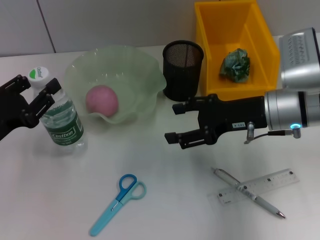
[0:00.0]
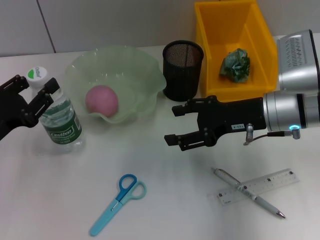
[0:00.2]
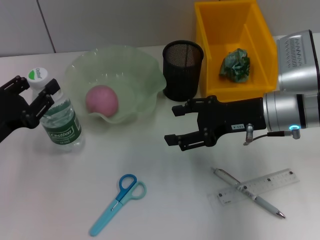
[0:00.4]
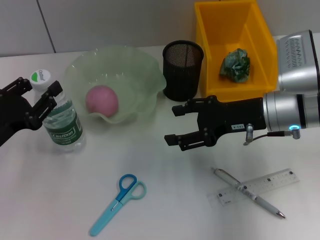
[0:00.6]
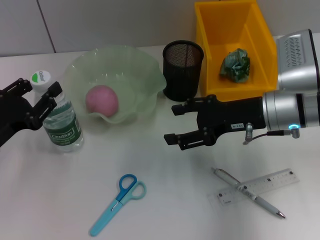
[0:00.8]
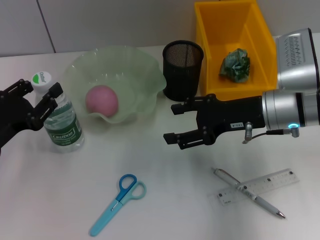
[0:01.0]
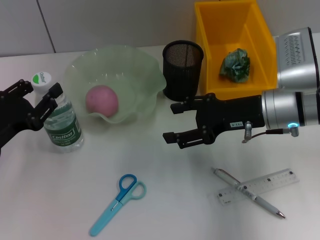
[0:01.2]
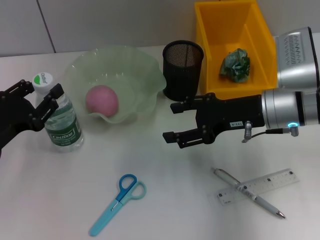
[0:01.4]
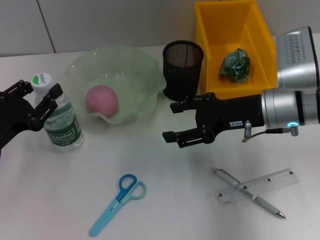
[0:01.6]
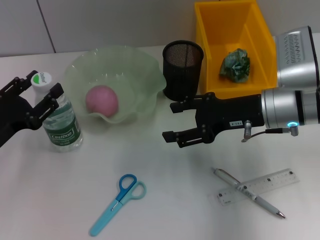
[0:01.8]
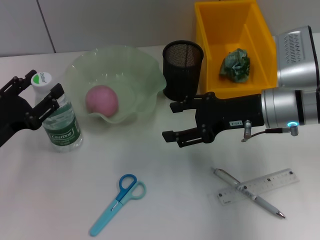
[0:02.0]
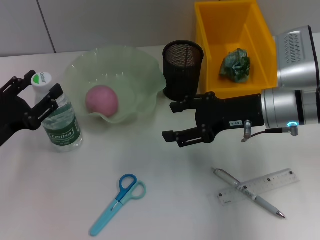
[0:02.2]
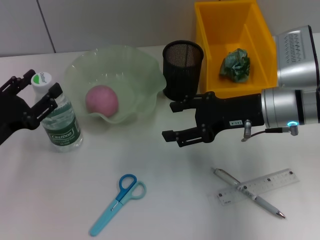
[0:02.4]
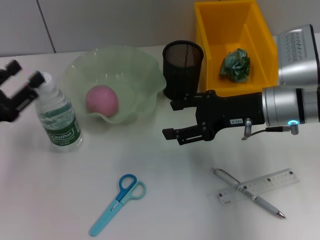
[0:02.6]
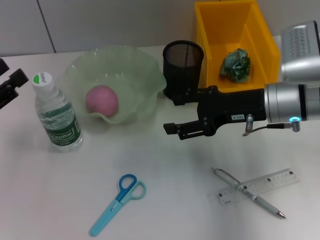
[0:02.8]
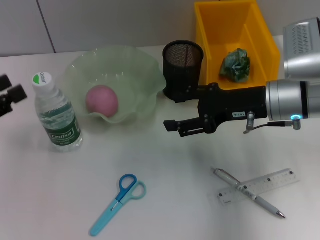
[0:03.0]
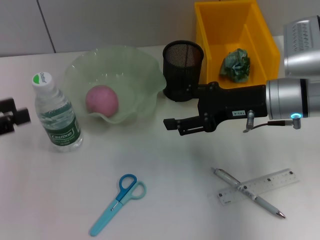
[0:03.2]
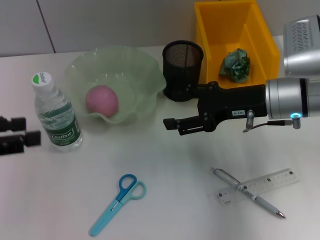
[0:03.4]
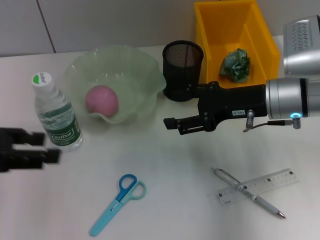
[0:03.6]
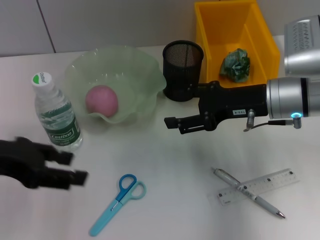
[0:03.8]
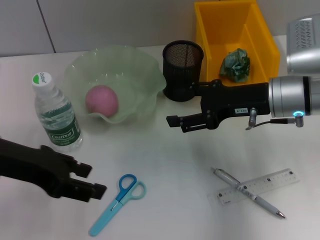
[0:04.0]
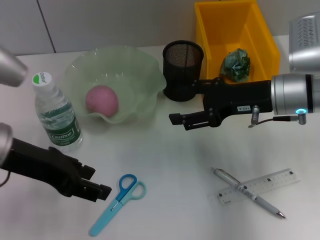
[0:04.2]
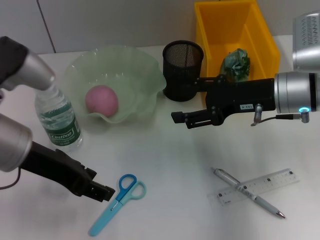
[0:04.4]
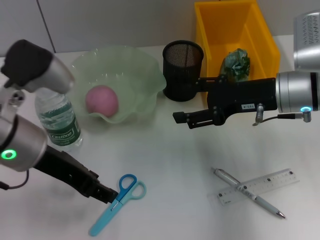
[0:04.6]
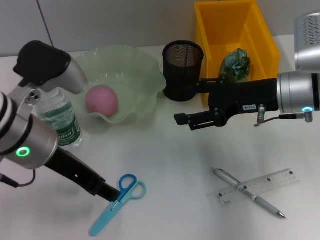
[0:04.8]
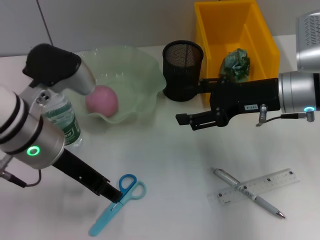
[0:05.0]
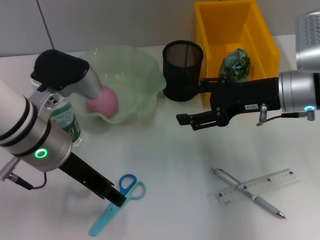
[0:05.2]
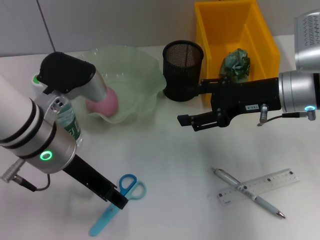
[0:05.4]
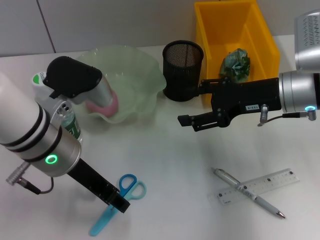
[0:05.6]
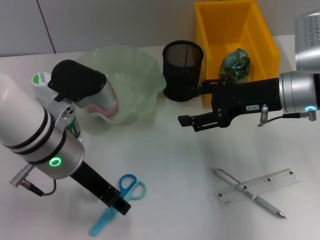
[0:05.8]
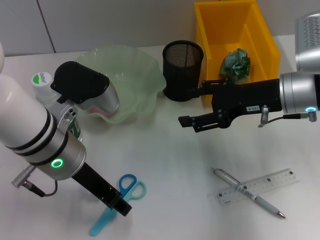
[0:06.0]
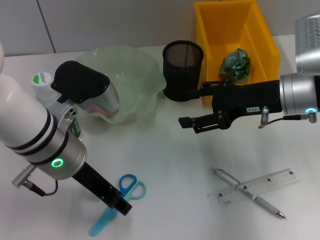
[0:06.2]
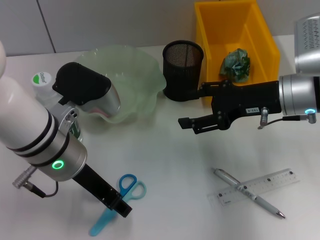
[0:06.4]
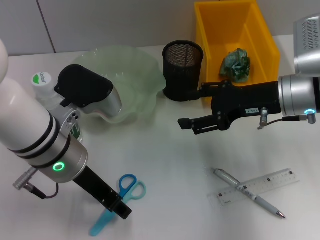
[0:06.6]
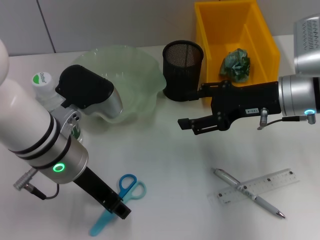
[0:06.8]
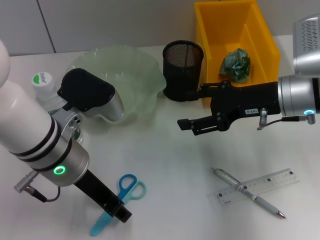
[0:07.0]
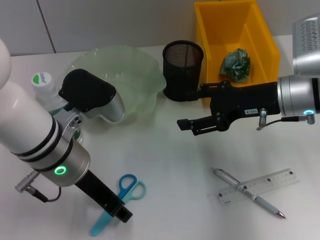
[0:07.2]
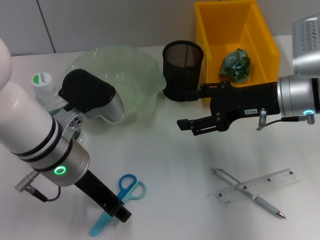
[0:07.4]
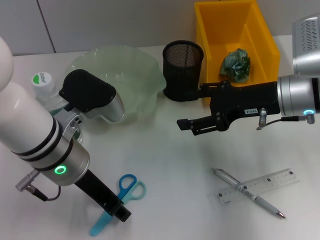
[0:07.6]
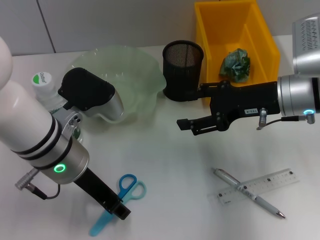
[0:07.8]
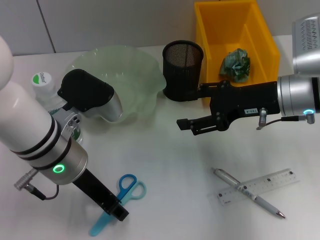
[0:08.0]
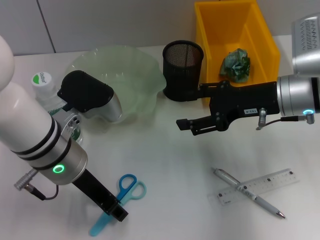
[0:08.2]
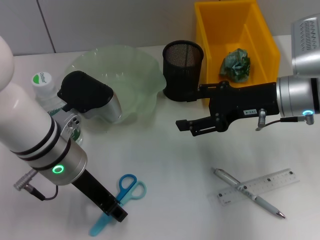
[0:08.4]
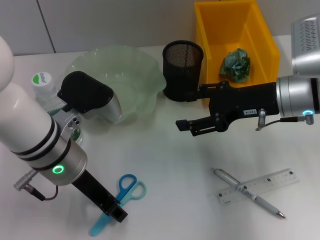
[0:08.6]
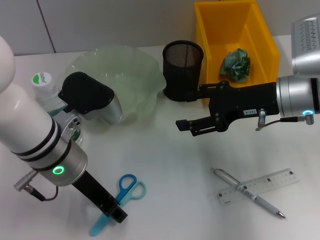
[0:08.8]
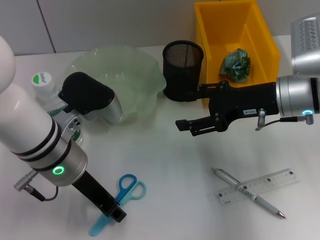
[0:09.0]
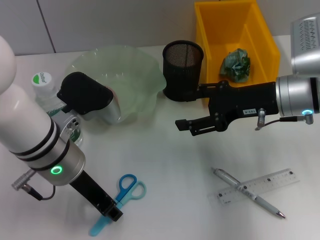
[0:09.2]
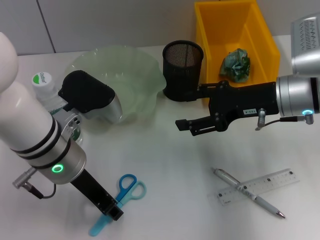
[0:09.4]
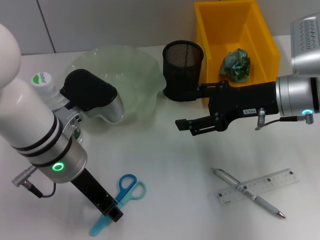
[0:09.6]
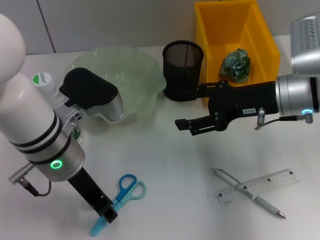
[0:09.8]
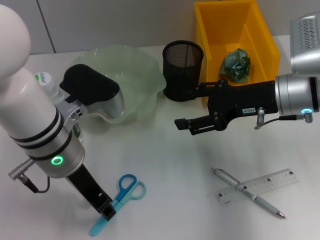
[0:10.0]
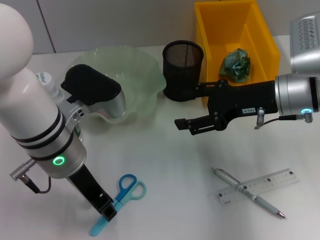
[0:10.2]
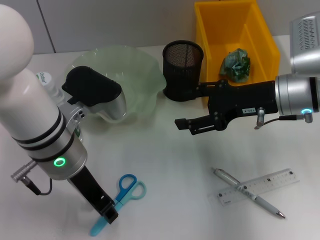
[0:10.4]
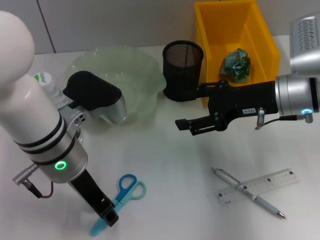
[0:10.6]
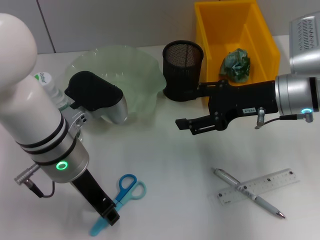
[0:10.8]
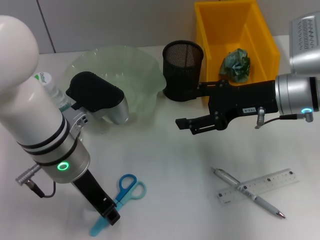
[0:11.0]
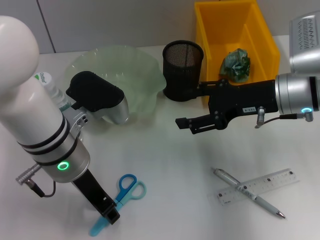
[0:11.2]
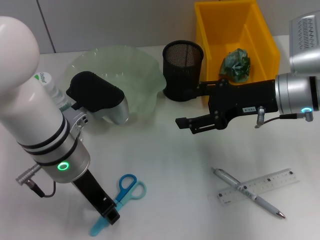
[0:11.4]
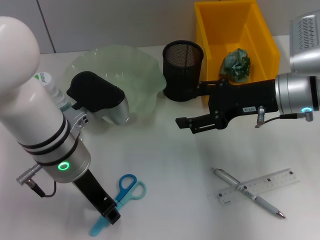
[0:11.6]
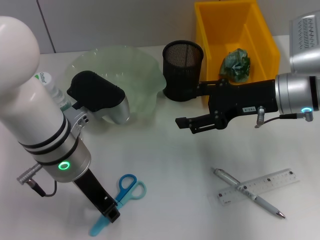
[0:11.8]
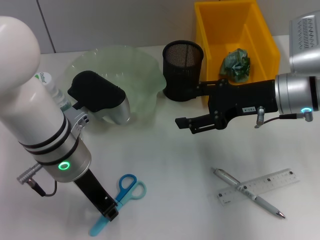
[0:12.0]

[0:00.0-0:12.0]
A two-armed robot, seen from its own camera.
Step, 0:00.0 to 0:02.0: Place the water bottle on the table with the left hand.
0:00.0 to 0:01.6: The grippers move only a little.
0:01.6 to 0:03.0: The left gripper shifts by roughly 5 cm.
0:03.0 to 0:04.4: The left gripper shifts roughly 15 cm to the right and upward.
0:04.4 to 0:06.0: The left gripper shifts some 5 cm to the right.
0:06.0 to 0:07.6: Both grippers stay put.
0:07.6 to 0:09.0: The two grippers keep their place.
0:09.0 to 0:10.4: The grippers stay close to where they were, moving slightly.
0:10.4 to 0:12.0: Both grippers stay about where they are.

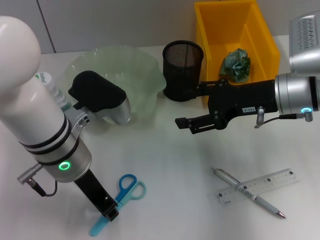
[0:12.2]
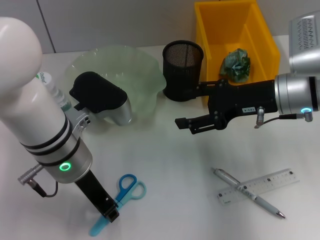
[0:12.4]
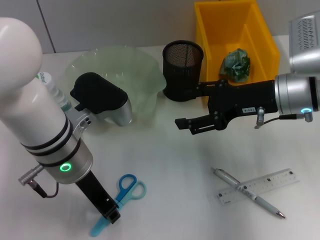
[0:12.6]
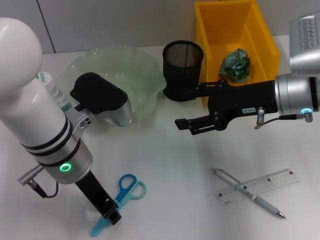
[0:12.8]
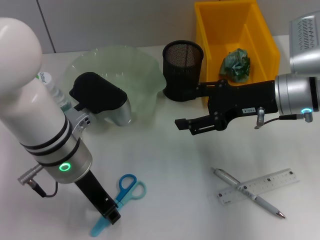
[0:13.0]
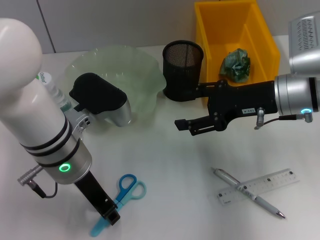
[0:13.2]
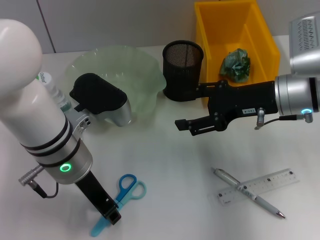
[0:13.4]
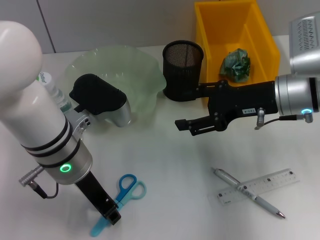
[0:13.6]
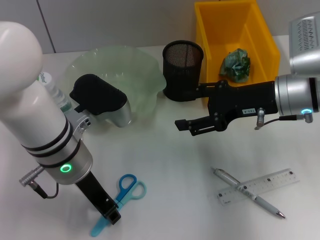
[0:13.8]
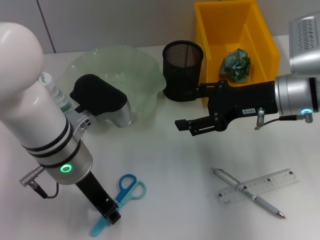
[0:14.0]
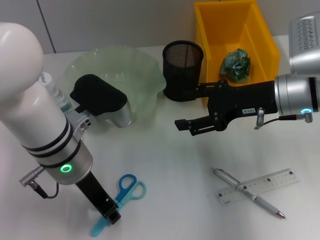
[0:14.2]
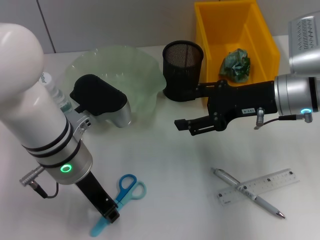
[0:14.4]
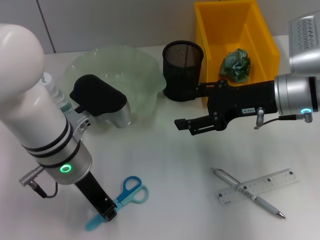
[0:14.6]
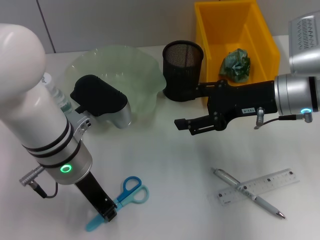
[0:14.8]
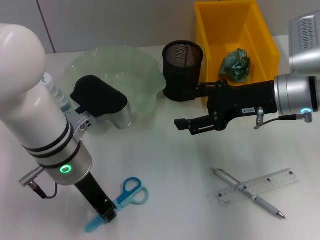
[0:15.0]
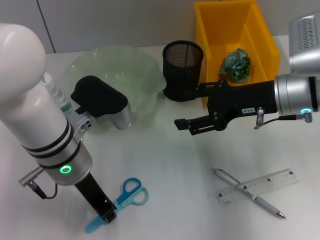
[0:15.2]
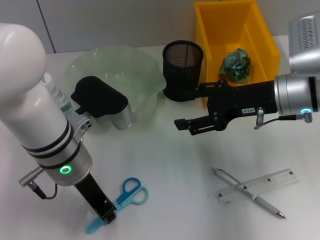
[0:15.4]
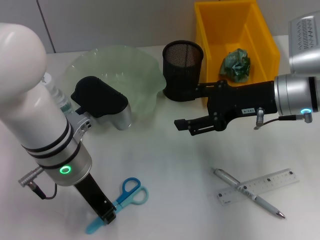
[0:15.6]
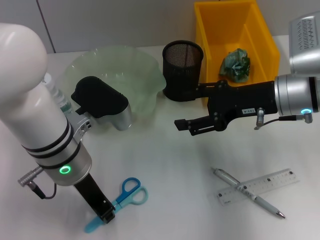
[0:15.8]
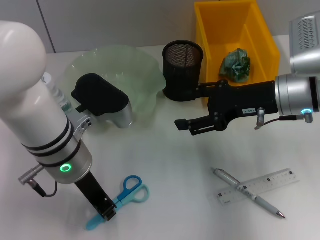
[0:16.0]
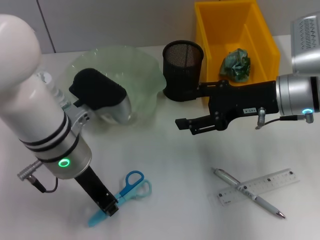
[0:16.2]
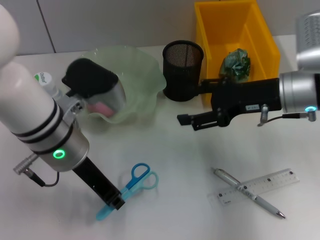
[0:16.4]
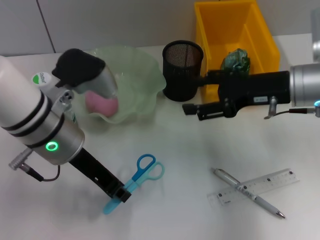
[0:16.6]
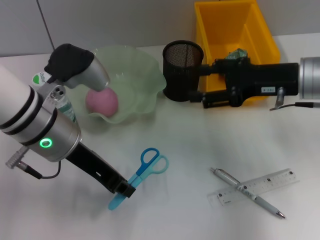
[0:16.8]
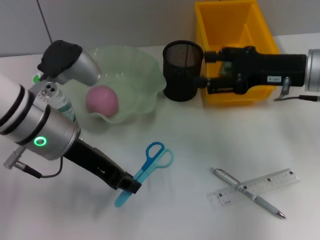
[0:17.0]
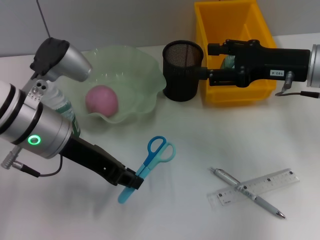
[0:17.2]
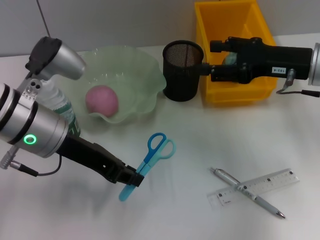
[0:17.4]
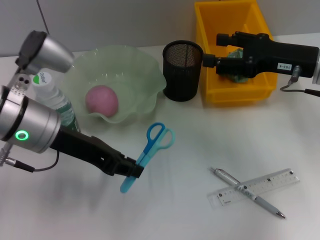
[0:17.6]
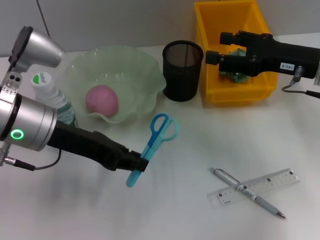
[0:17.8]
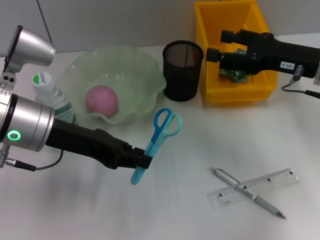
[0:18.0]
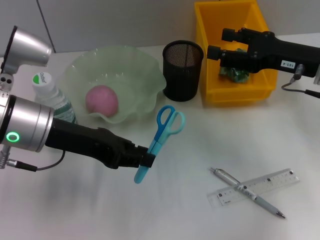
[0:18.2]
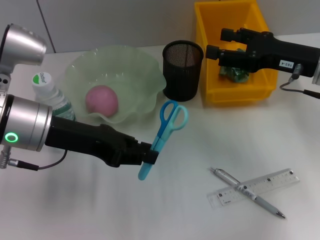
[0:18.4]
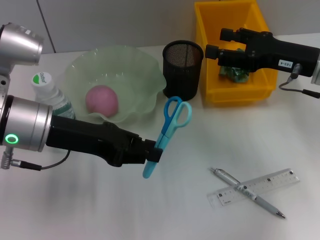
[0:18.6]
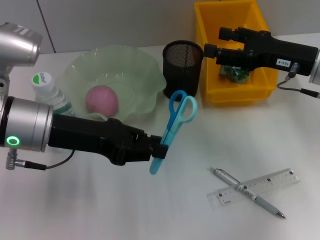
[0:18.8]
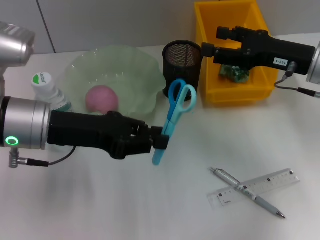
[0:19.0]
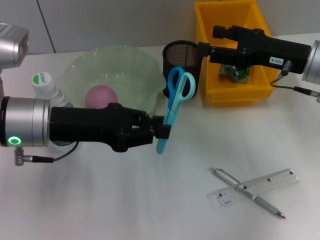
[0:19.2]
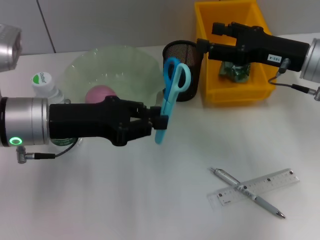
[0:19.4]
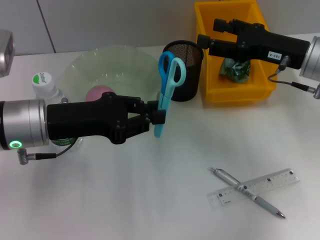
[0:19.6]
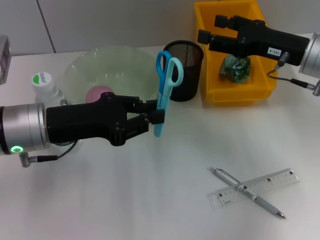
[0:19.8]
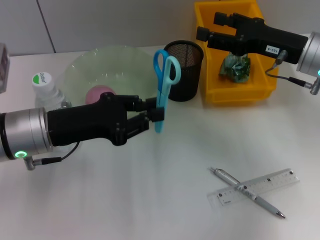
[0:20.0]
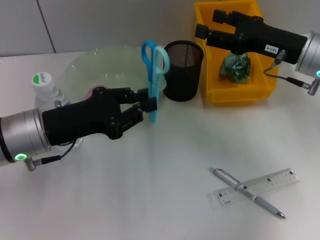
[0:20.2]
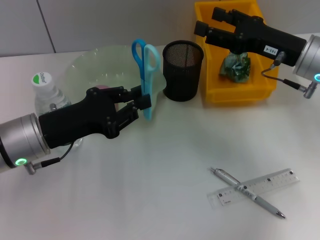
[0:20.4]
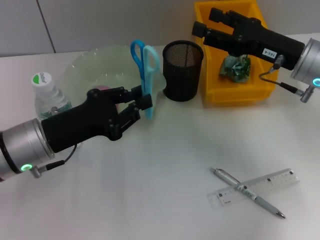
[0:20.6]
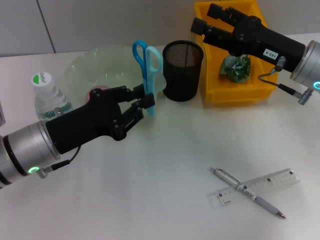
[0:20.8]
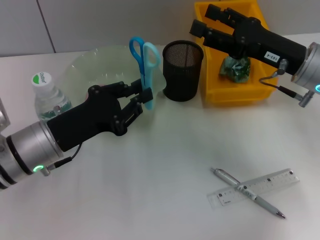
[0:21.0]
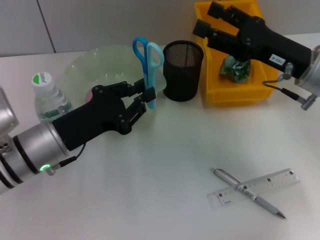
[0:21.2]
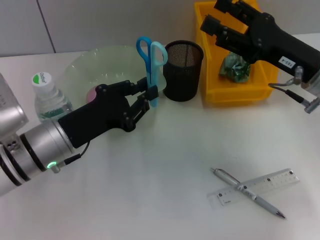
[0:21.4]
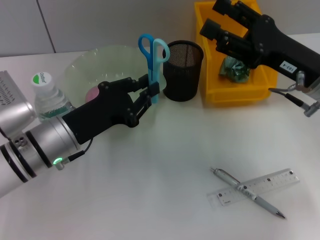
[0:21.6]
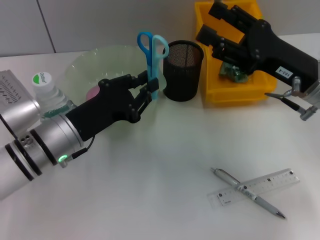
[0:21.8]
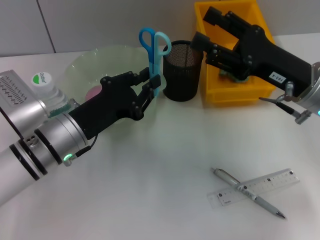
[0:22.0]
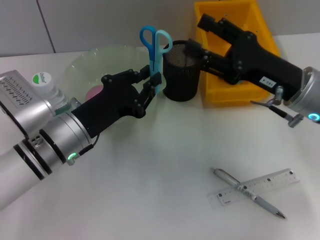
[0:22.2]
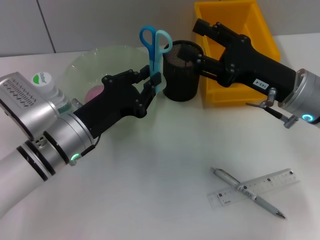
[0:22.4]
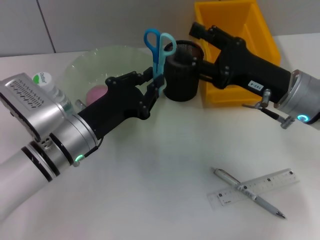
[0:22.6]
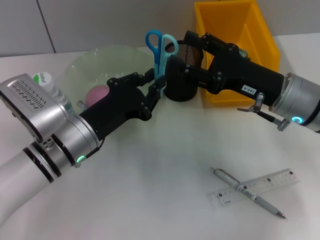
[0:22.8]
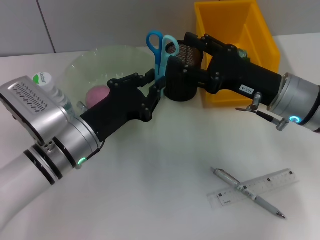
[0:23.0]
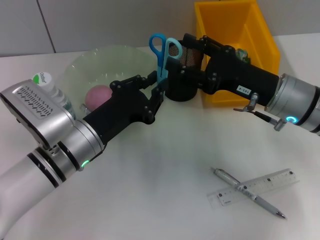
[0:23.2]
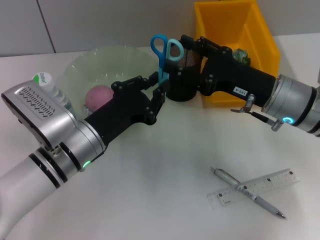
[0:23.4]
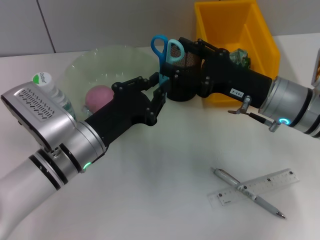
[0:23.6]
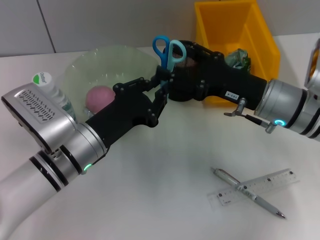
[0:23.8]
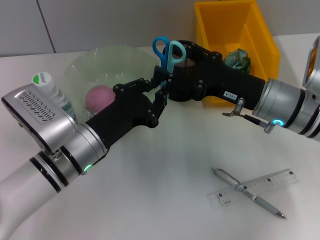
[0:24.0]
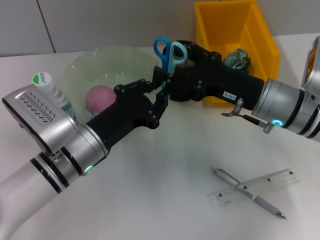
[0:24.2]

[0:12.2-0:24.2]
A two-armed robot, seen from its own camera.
Step, 0:12.2 to 0:15.4: Grab the blue scissors with the left hand.
0:12.2 to 0:15.2: Both grippers stay put.
0:19.8 to 0:21.2: The left gripper shifts roughly 5 cm downward.
